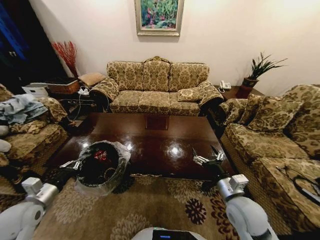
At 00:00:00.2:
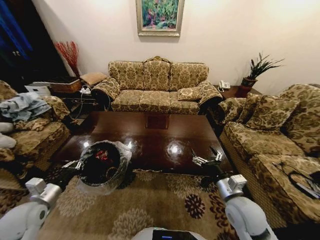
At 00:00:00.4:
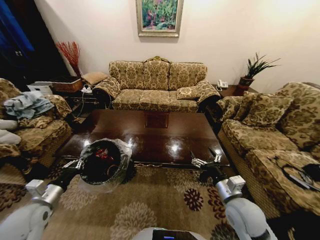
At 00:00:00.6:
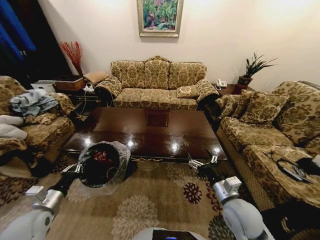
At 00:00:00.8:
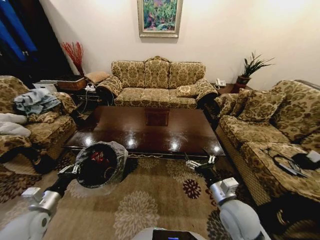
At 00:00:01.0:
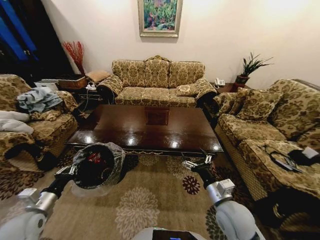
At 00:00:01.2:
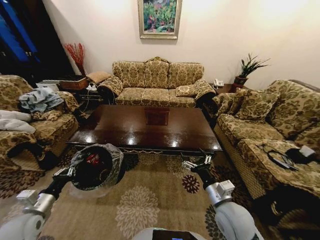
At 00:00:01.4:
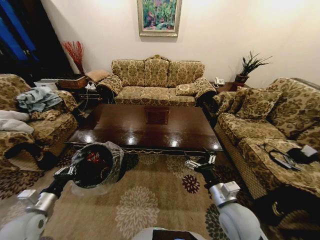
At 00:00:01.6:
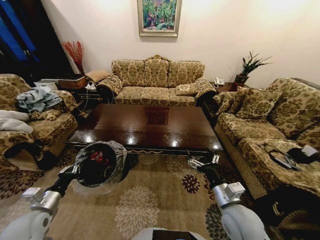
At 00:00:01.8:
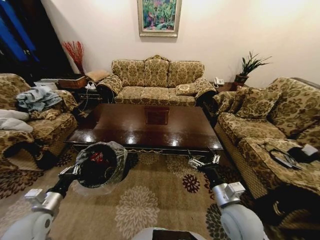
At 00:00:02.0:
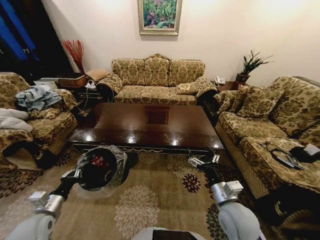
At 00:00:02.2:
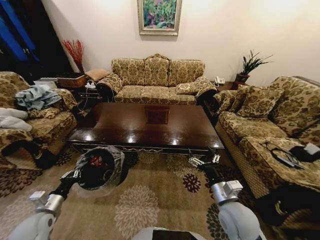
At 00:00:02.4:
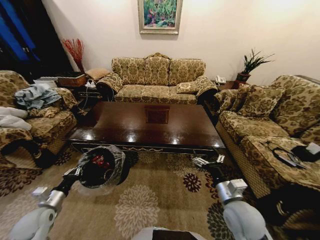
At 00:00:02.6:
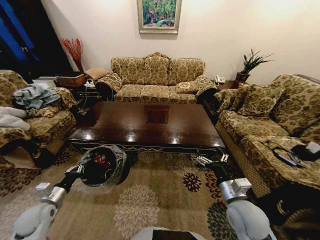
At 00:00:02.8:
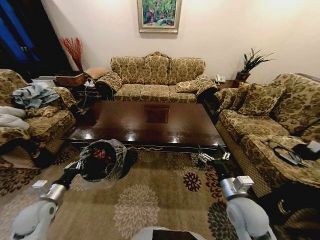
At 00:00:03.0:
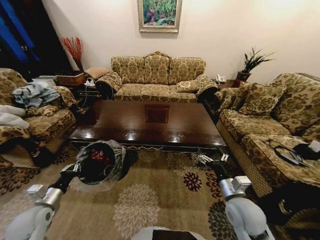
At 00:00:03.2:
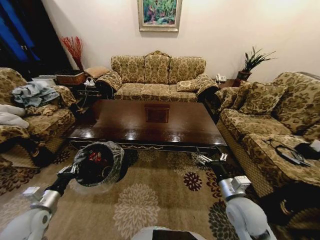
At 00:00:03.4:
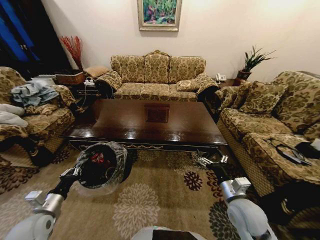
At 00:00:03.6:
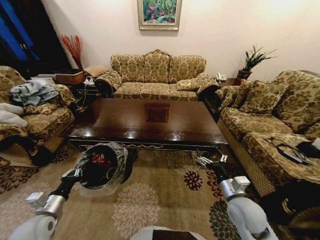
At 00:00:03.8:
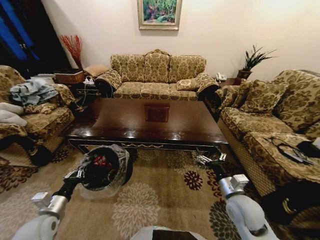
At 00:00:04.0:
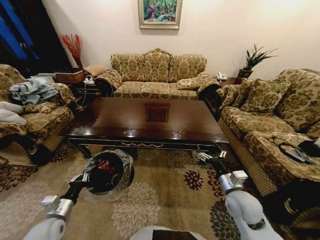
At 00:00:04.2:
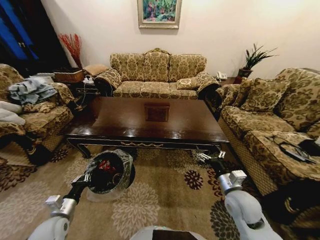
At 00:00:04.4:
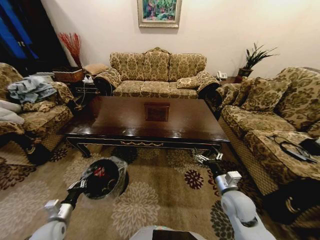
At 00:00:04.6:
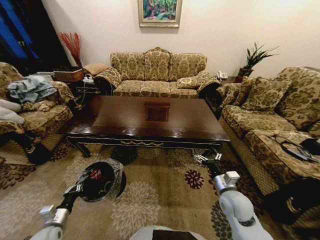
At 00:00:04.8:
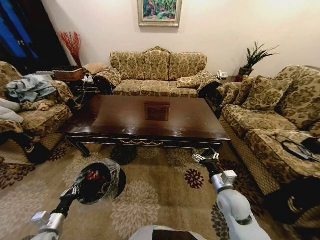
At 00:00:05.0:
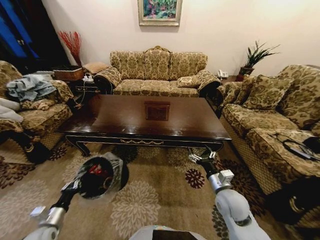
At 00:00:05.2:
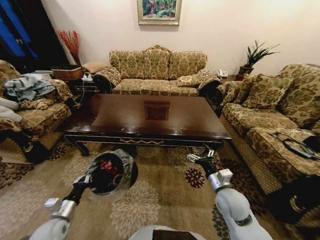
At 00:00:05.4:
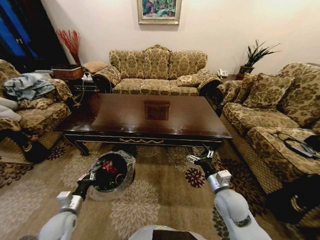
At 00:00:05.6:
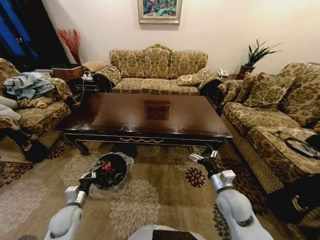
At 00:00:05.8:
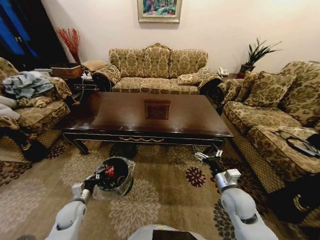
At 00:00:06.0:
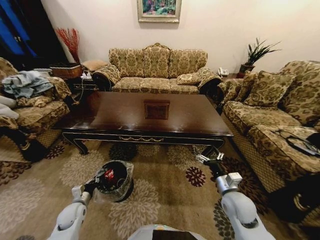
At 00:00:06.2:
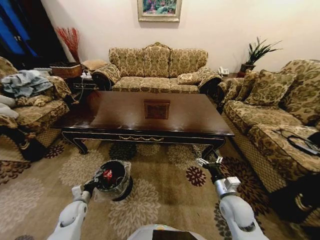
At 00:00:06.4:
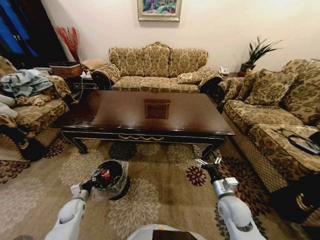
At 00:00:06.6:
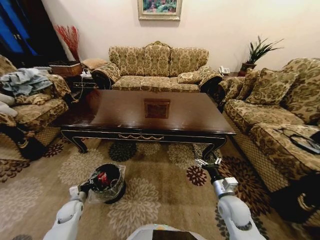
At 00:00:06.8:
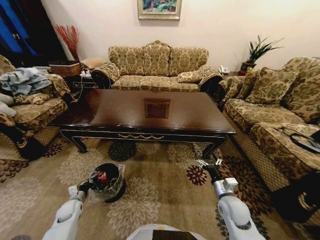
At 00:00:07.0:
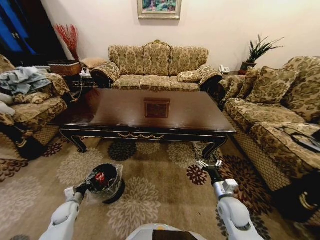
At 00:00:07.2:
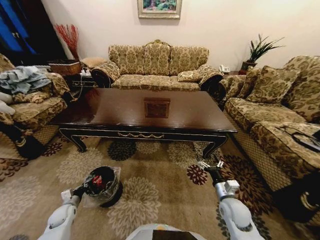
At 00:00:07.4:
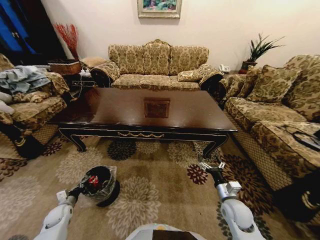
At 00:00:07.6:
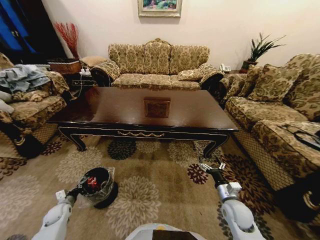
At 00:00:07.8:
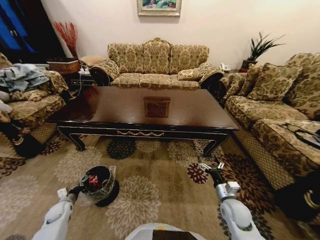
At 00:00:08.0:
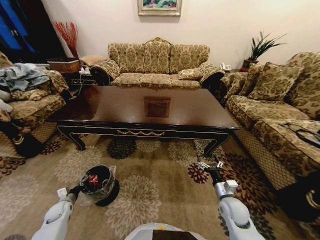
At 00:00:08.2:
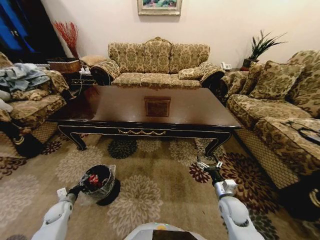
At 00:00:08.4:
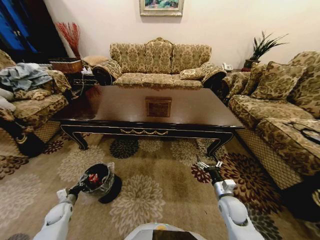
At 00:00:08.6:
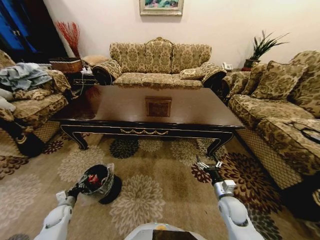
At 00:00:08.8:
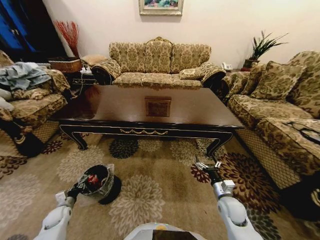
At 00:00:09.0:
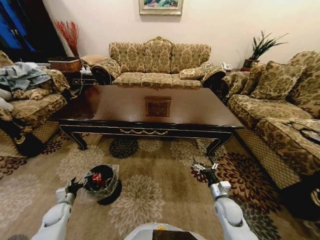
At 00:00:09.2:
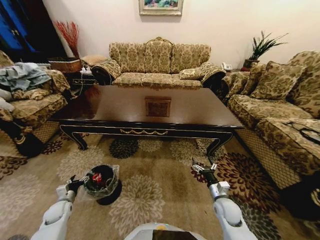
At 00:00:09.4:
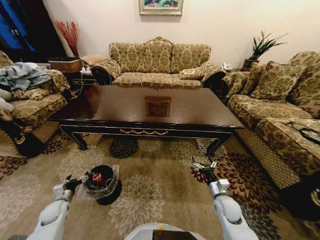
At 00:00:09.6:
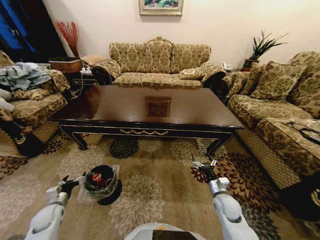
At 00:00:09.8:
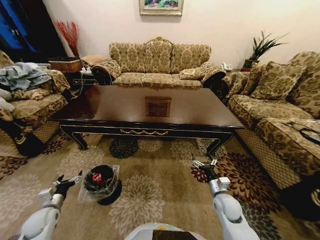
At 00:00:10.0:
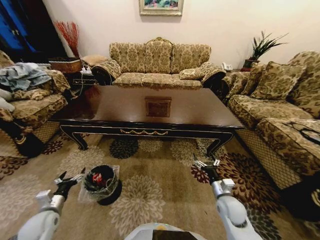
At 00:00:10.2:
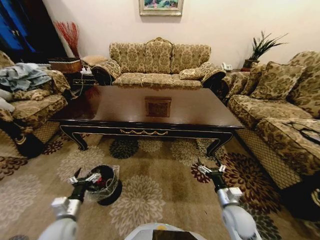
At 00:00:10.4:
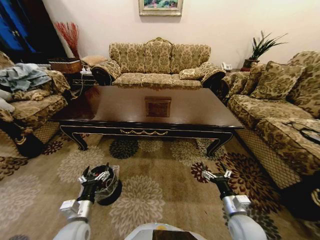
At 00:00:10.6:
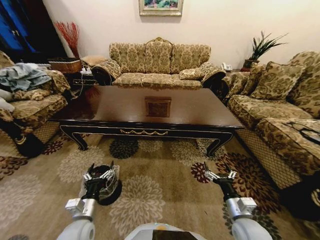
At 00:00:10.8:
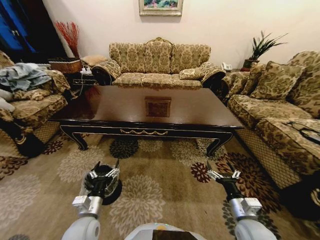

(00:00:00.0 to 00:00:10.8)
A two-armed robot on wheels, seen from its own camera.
Task of the whole recording: Move to the front of the table and place the trash on the table into the trash bin.
00:00:03.0 - 00:00:04.6: The left gripper is displaced downward and backward by roughly 10 cm; the right gripper changes place by some 5 cm.
00:00:04.6 - 00:00:06.2: The left gripper heads forward, covering approximately 10 cm.
00:00:06.2 - 00:00:07.8: The right gripper is displaced downward by some 5 cm; the left gripper is displaced to the left by roughly 10 cm.
00:00:07.8 - 00:00:09.2: The left gripper opens.
00:00:09.2 - 00:00:10.8: The right gripper heads upward and backward, covering approximately 15 cm. The left gripper heads to the right and upward, covering some 25 cm.

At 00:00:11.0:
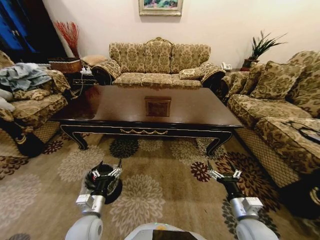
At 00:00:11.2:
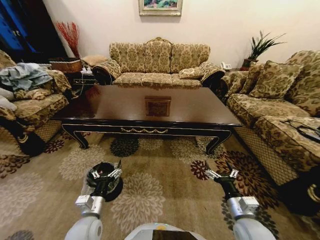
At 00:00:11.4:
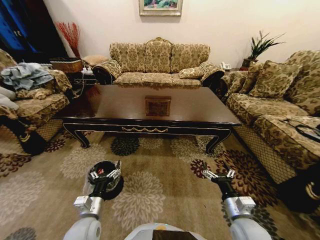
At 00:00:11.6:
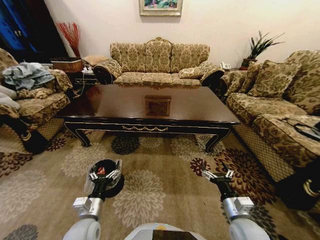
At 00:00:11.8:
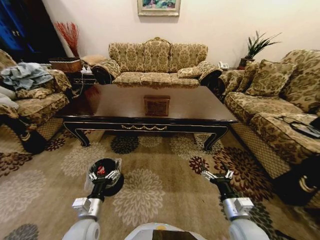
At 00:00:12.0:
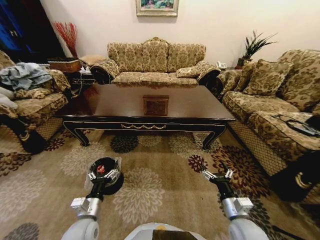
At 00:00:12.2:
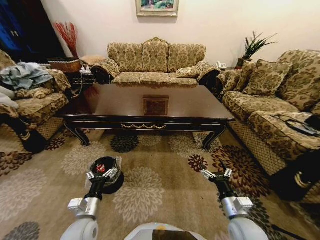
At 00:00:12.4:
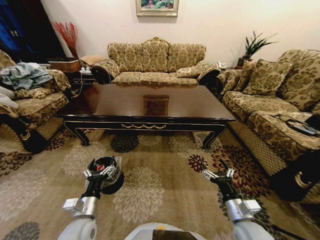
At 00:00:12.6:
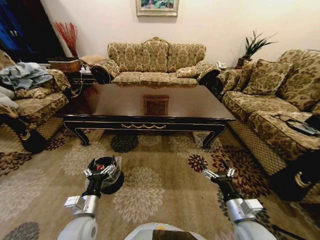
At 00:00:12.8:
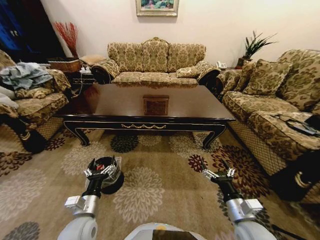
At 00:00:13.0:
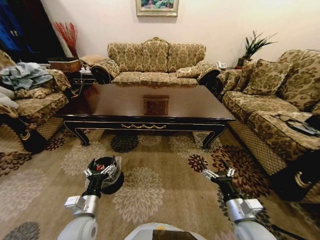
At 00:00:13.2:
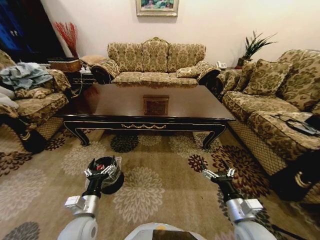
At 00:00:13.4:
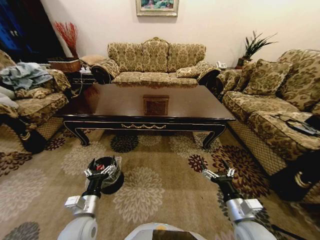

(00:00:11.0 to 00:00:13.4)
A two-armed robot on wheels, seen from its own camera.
Task of the whole recording: Move to the front of the table and place the trash on the table into the trash bin.
00:00:12.2 - 00:00:13.4: The grippers stay close to where they were, moving slightly.
